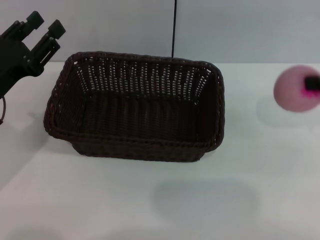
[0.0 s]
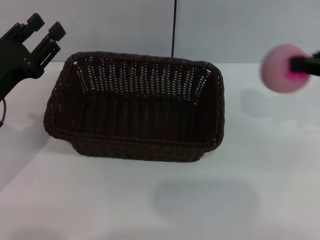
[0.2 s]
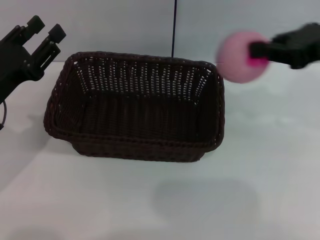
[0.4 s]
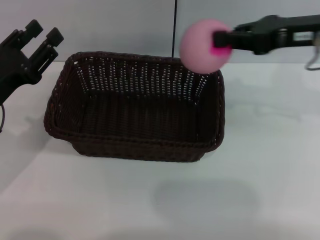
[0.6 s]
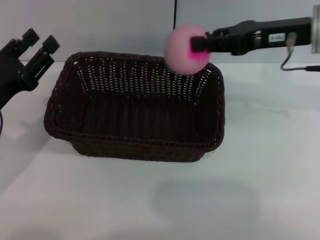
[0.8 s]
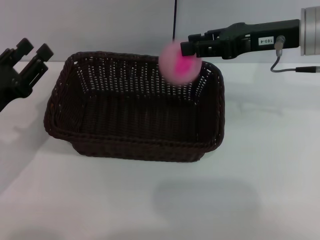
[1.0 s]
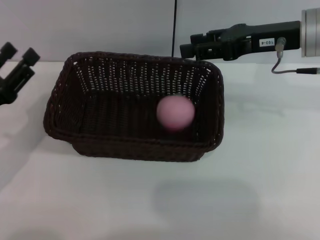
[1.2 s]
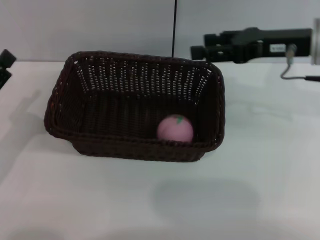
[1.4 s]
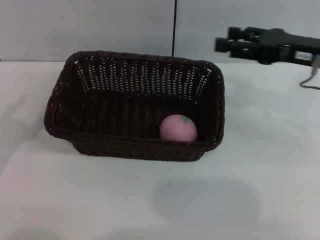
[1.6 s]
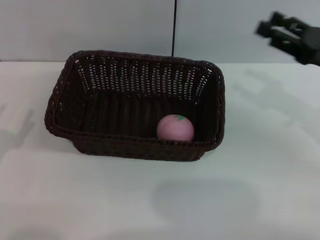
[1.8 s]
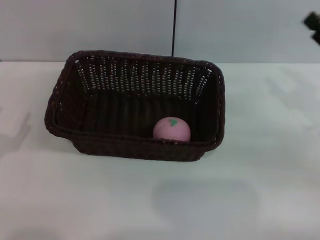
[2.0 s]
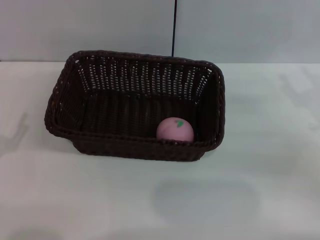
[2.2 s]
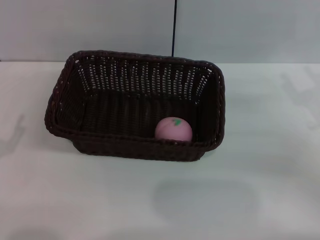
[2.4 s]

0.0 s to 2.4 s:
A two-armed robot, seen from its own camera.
Step, 0.2 to 1.8 s: Place the peach into the basket with the left gripper.
0.0 to 1.2 s: The left gripper changes place by some 5 cm. Meanwhile the right gripper shifts roughly 15 cm to the left and forward, and opens up.
1.2 to 2.4 s: The left gripper shifts about 5 cm backward; the right gripper heads downward, to the right and backward, covering approximately 20 cm, and opens up.
